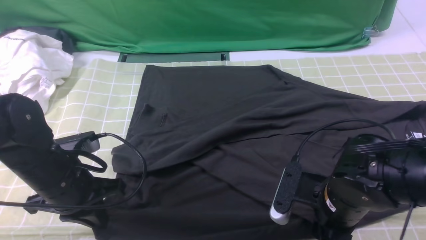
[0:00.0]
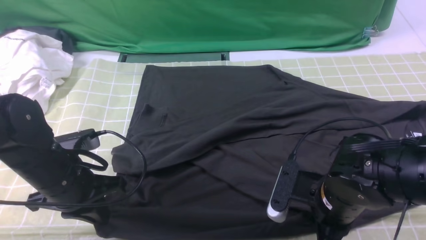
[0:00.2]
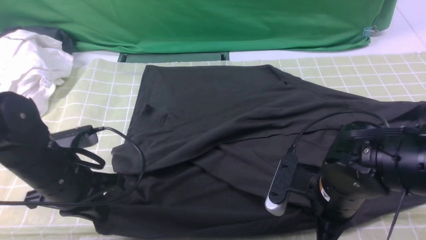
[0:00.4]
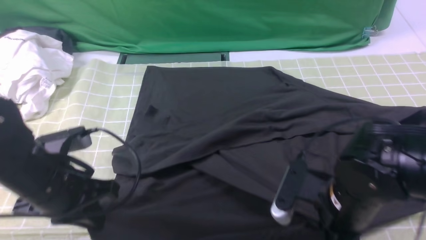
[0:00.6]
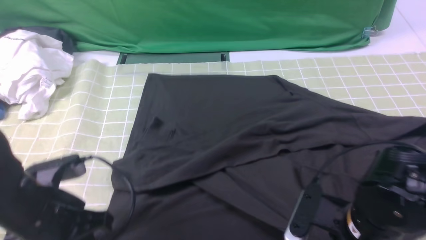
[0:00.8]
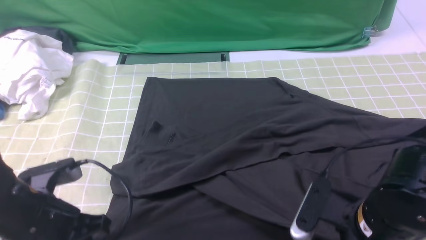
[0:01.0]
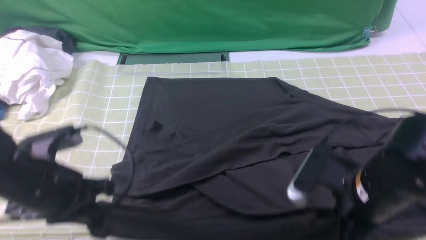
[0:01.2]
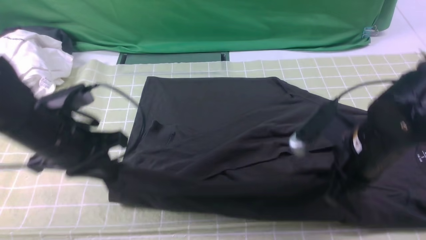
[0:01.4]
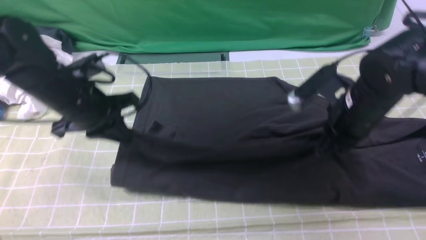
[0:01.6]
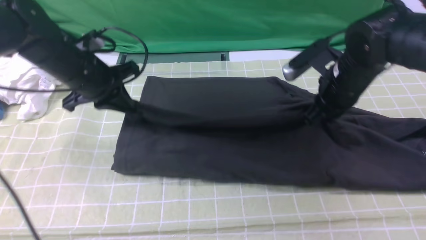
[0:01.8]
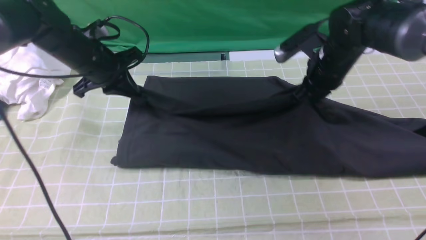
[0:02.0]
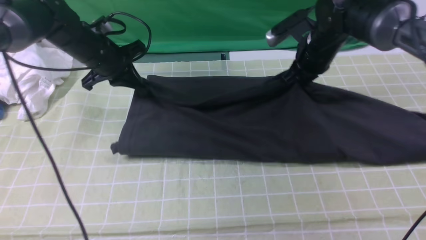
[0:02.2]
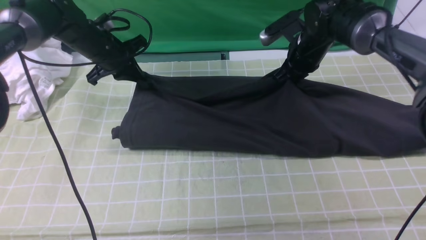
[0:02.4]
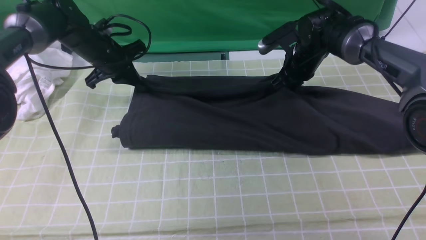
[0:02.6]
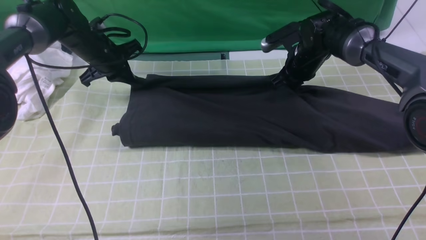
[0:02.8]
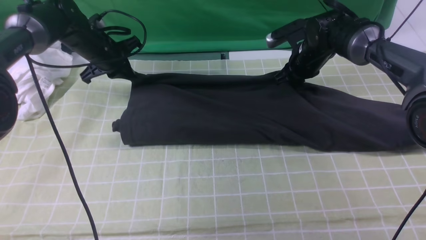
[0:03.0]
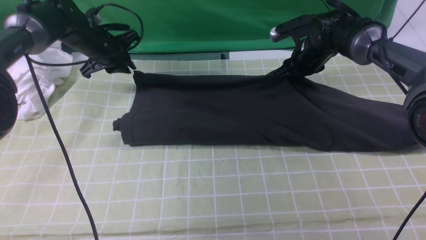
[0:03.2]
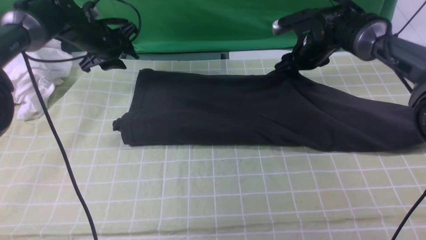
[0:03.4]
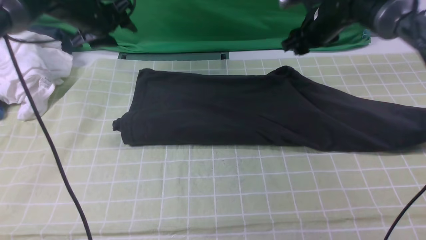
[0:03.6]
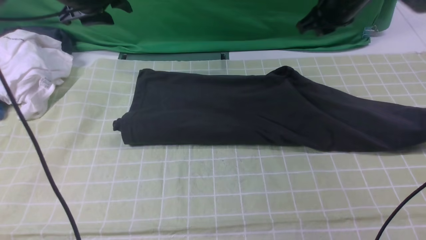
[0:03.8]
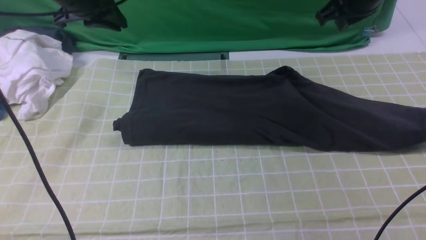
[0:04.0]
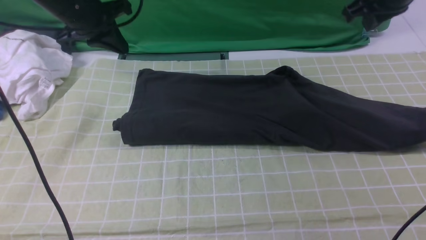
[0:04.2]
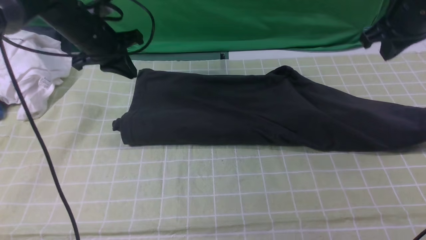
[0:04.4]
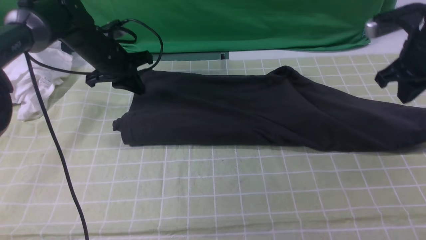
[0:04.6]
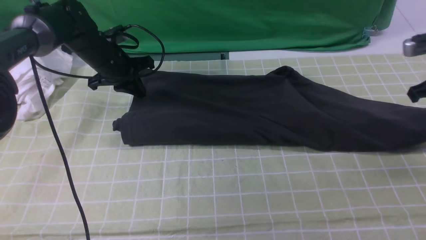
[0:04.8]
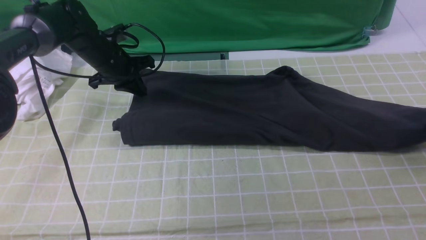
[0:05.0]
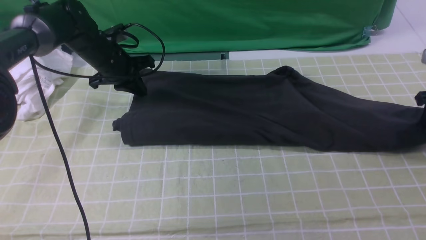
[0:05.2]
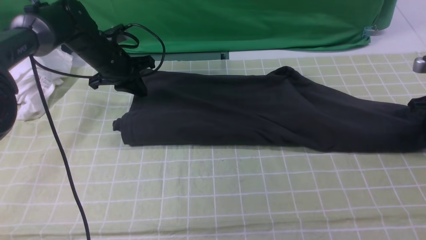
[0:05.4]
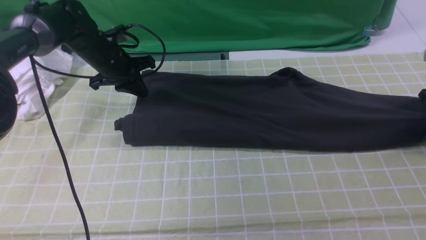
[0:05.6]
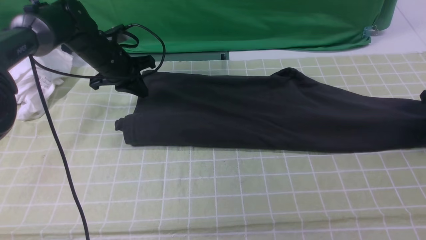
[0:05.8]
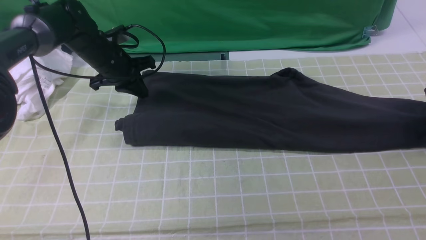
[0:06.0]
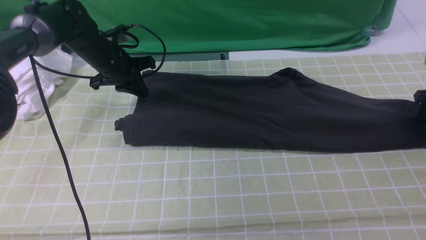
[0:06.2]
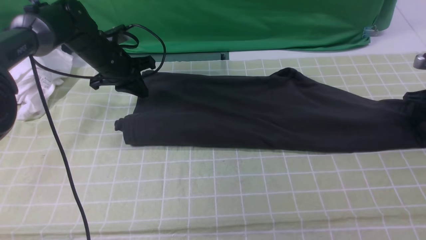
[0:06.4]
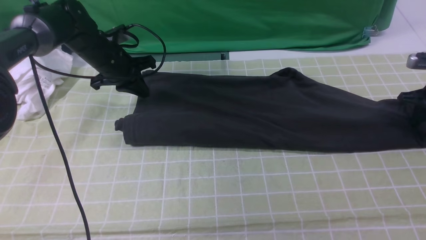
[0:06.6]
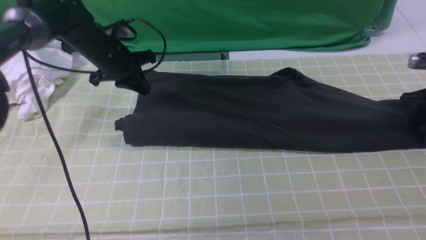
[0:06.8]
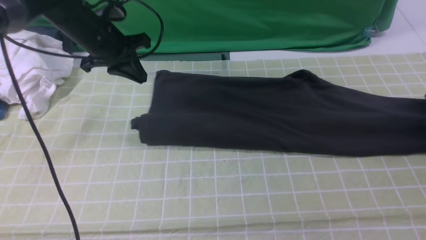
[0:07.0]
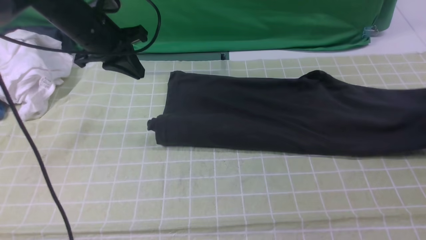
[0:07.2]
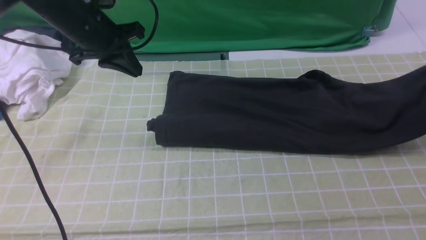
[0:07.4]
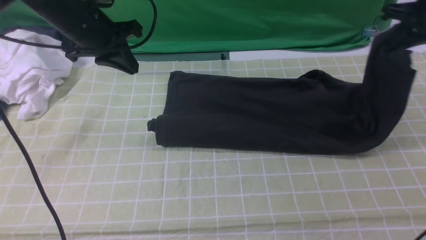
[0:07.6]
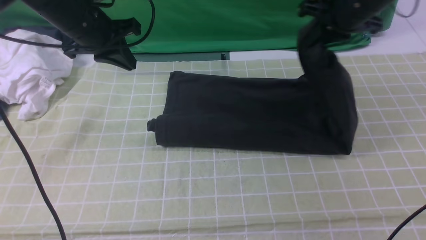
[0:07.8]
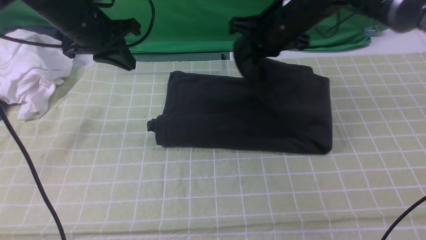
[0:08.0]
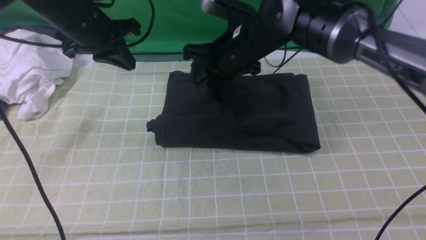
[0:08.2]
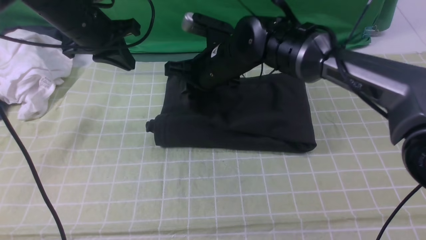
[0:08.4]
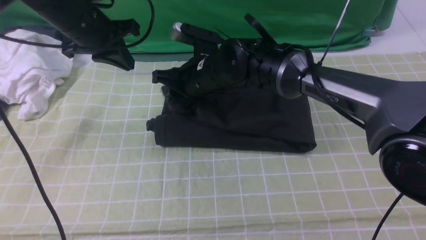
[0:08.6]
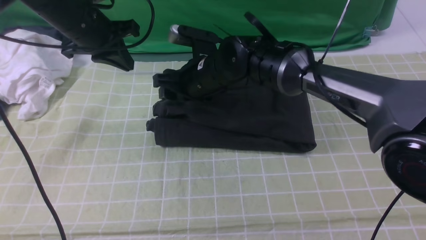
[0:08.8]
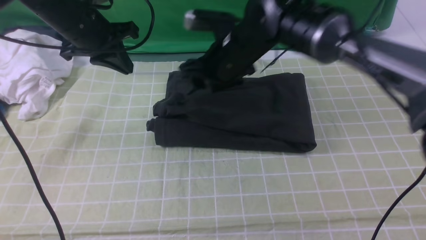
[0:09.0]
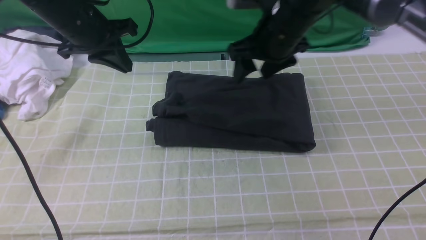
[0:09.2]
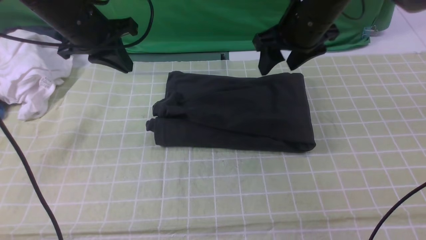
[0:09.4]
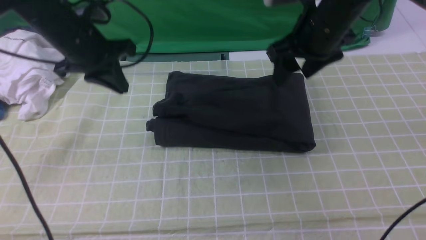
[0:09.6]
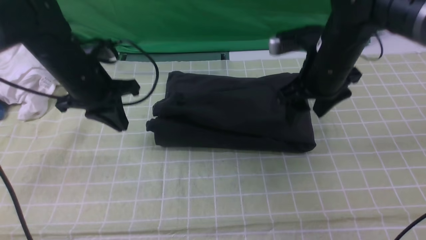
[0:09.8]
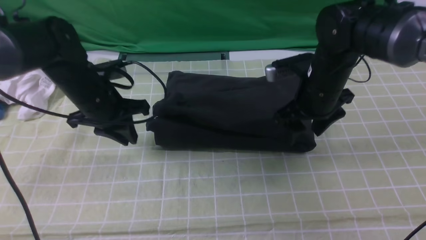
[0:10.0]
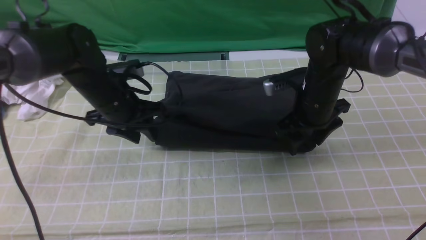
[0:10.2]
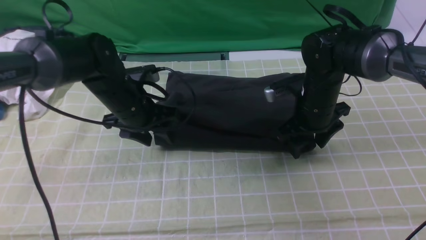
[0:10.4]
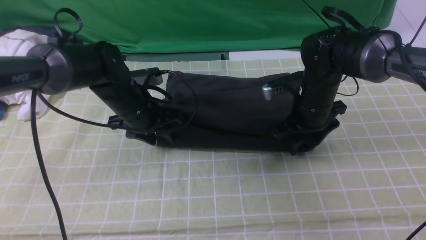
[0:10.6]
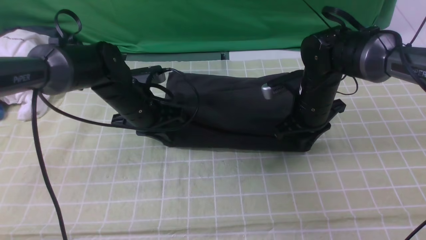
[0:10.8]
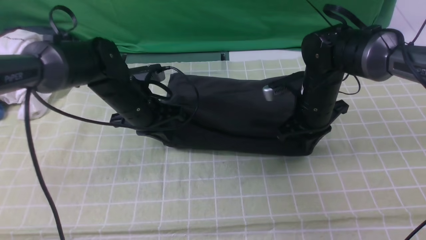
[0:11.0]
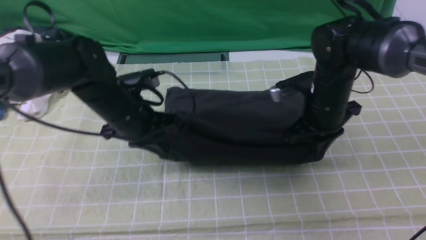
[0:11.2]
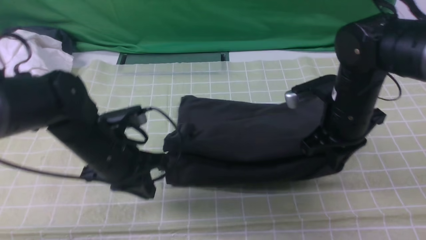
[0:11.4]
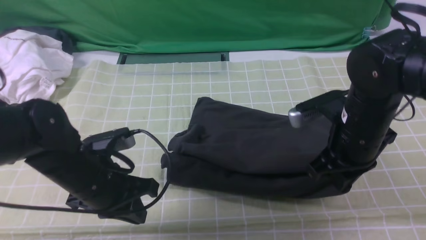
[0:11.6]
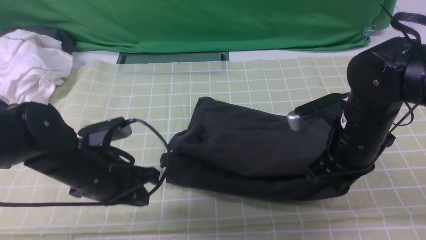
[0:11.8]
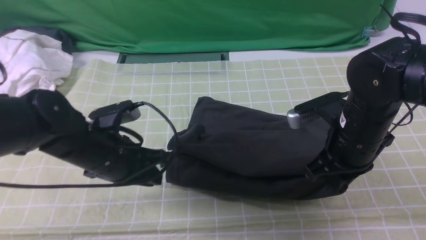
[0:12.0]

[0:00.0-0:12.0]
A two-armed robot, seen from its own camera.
Step, 0:00.4 to 0:03.2: use both arms to drag the lower edge of the fabric forward and fold it over the upper edge.
Step, 0:03.6 to 0:06.8: use the right arm to clamp the right edge of the fabric.
Step, 0:07.0 to 0:08.6: use the right arm to drag the right edge of the fabric to the left and folds it over the left edge.
0:00.0 to 0:01.6: The grippers both shift forward and upward by roughly 10 cm. The right gripper closes.
0:01.6 to 0:03.0: The grippers both shift forward by about 20 cm.
0:03.0 to 0:04.4: The left gripper goes approximately 5 cm upward, and opens, then closes again; the right gripper shifts some 20 cm upward, backward and to the right, and closes up.
0:04.4 to 0:06.0: The right gripper heads to the right and downward, covering about 20 cm, and opens its fingers; the left gripper moves downward, approximately 5 cm.
0:06.0 to 0:07.6: The left gripper heads upward and backward, covering about 10 cm; the right gripper heads to the left and upward, covering about 20 cm, and closes its fingers.
0:07.6 to 0:09.0: The right gripper is displaced to the left by some 25 cm, and opens its fingers.
0:09.0 to 0:10.4: The left gripper travels downward and to the right by some 15 cm, and opens. Meanwhile the right gripper goes approximately 15 cm to the right and downward.
0:10.4 to 0:12.0: Both grippers travel together backward, approximately 10 cm. The left gripper closes its fingers; the right gripper closes its fingers.

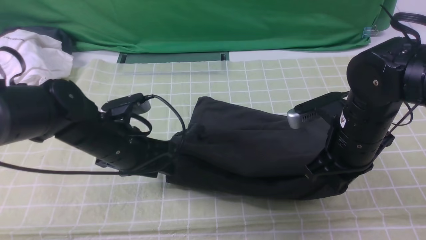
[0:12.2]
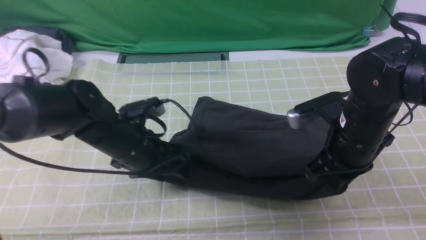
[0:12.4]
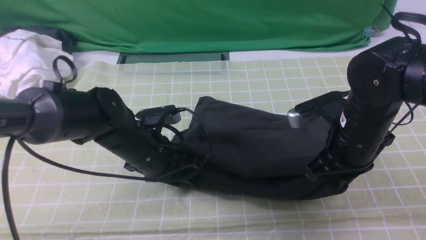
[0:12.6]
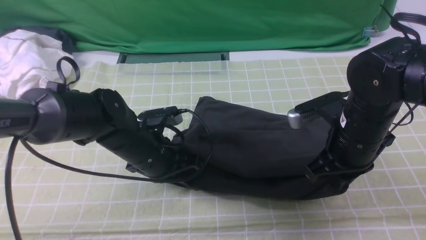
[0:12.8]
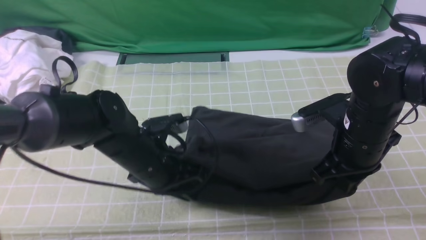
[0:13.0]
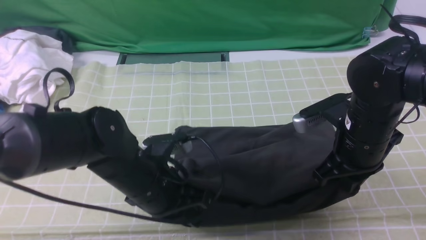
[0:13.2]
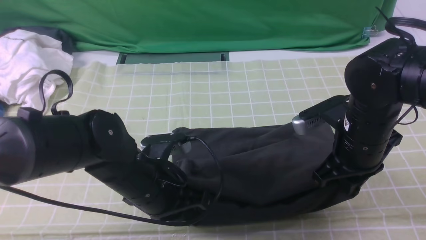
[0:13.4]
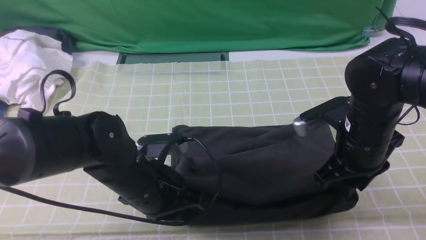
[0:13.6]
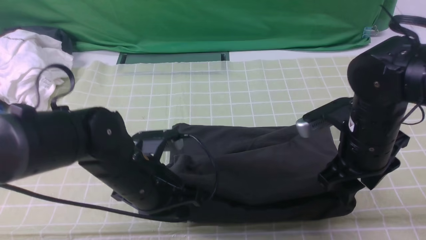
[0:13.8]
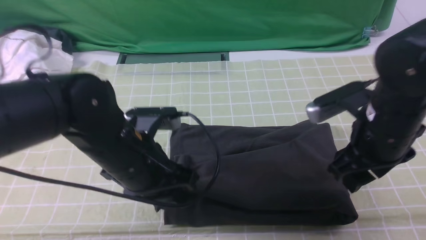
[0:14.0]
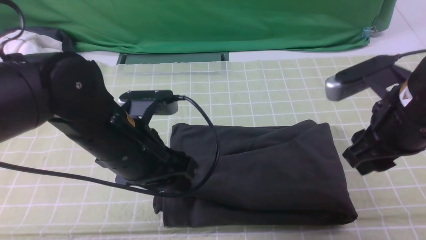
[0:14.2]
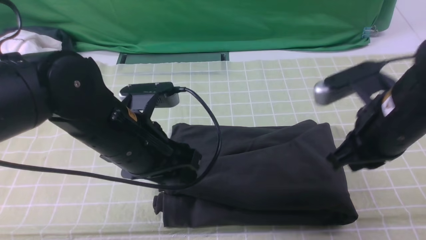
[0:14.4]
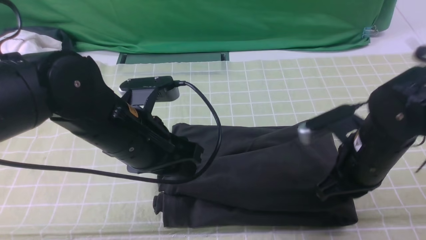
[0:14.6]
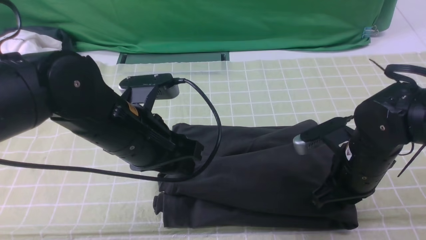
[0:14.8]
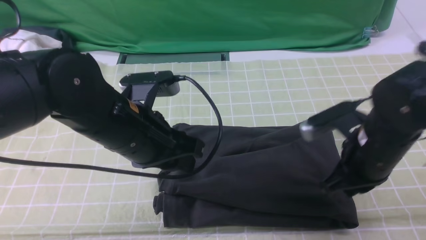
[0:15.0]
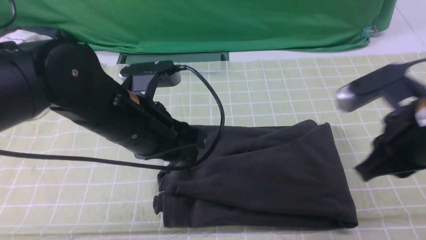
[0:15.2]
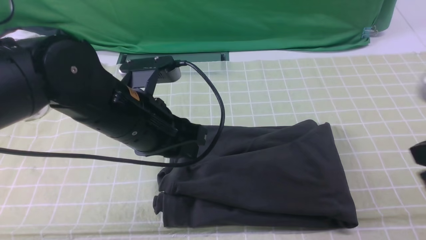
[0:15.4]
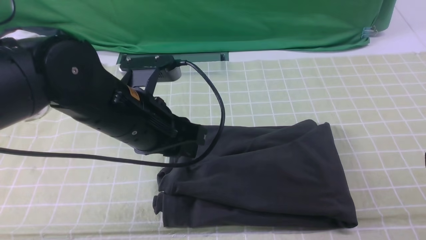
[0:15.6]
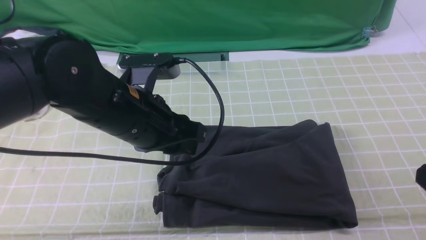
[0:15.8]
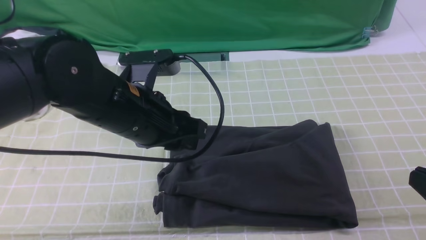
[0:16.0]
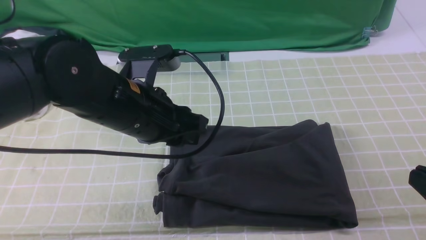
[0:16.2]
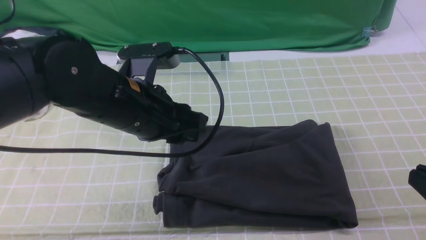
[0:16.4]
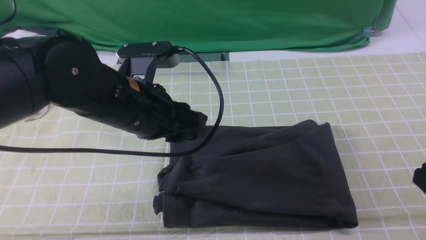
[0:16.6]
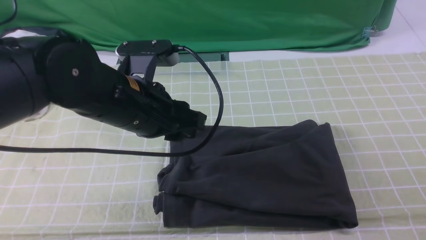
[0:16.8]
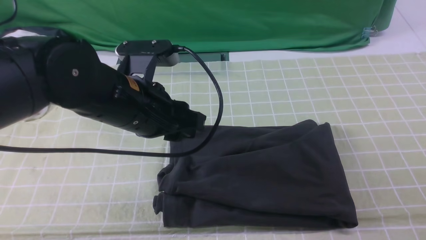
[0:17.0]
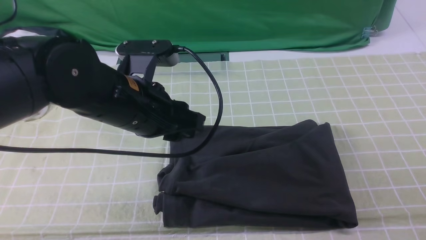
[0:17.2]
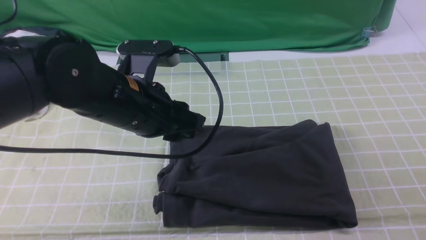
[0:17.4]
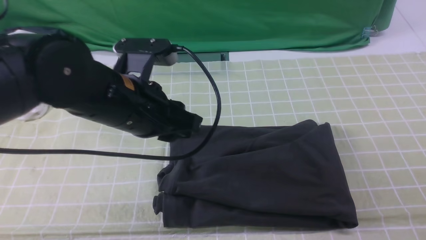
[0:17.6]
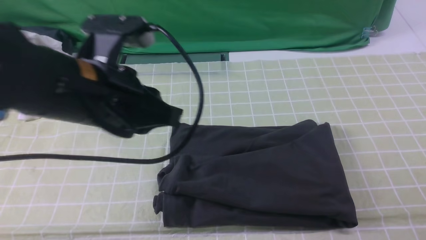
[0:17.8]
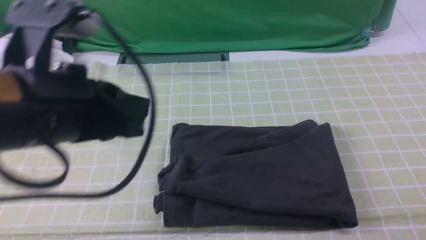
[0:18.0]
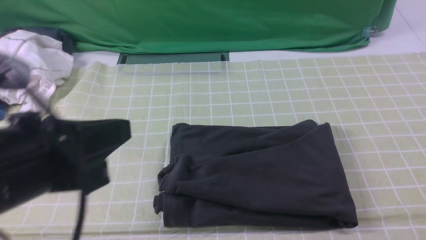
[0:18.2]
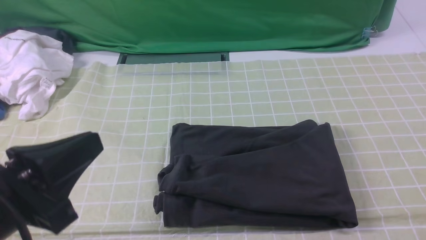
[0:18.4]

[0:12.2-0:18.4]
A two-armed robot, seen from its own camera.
0:12.2 to 0:13.8: The right gripper opens up. Meanwhile the left gripper travels backward by about 5 cm, and closes.
0:13.8 to 0:15.4: The right gripper goes up and down, about 15 cm each way, reversing 2 times, and closes its fingers, while the left gripper shifts about 10 cm upward, and opens, then closes once more.
0:15.4 to 0:16.8: The right gripper shifts approximately 10 cm downward, backward and to the right.
0:16.8 to 0:18.4: The left gripper heads backward and to the left, covering some 20 cm, and closes its fingers. Meanwhile the right gripper moves downward, about 5 cm.
